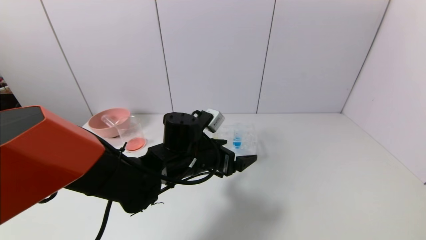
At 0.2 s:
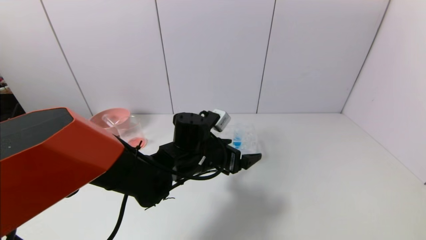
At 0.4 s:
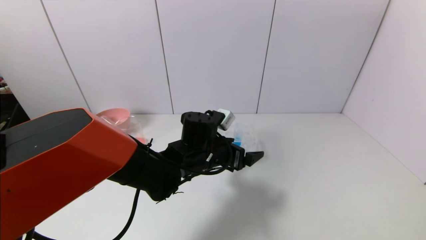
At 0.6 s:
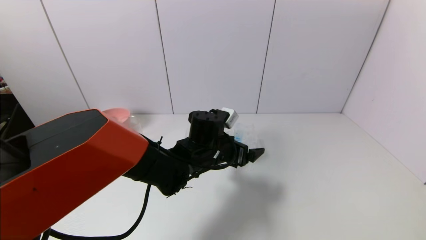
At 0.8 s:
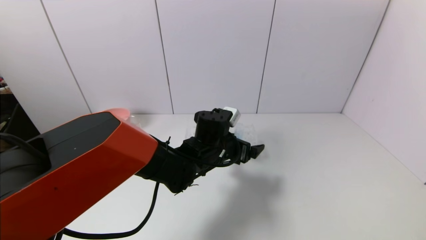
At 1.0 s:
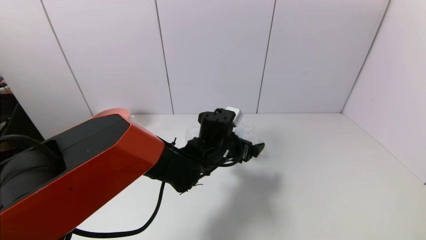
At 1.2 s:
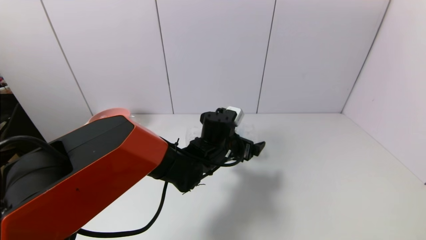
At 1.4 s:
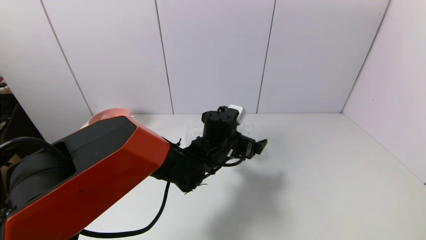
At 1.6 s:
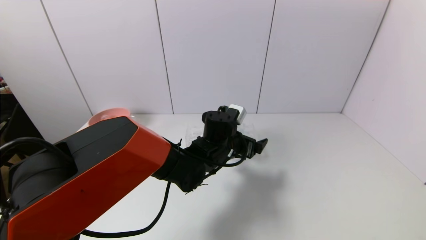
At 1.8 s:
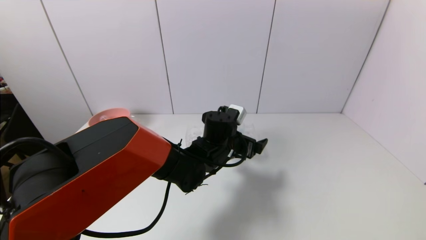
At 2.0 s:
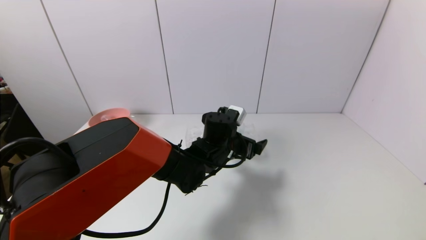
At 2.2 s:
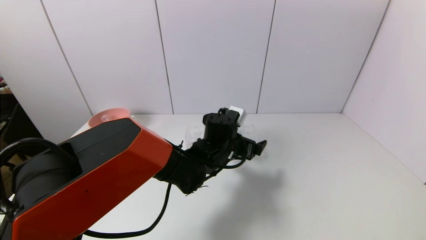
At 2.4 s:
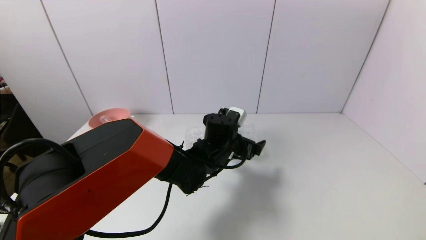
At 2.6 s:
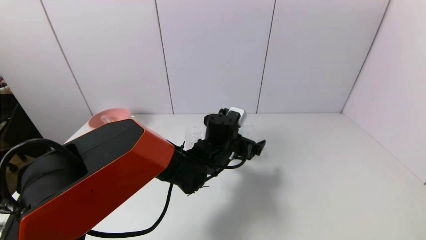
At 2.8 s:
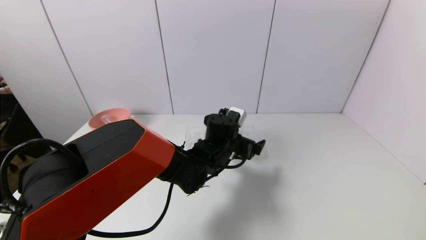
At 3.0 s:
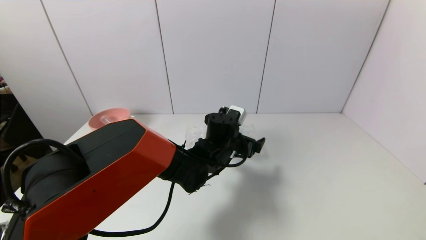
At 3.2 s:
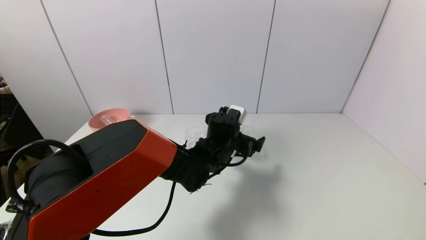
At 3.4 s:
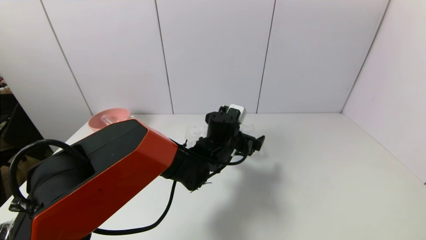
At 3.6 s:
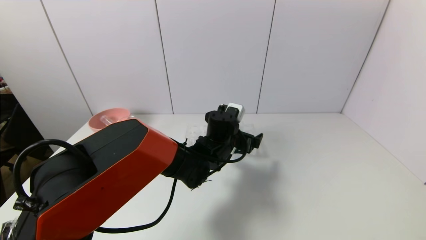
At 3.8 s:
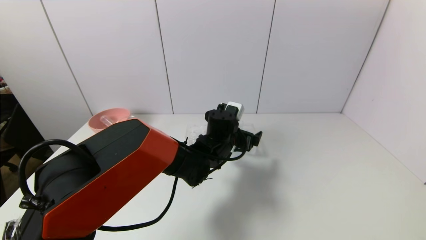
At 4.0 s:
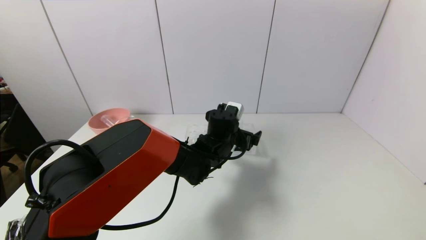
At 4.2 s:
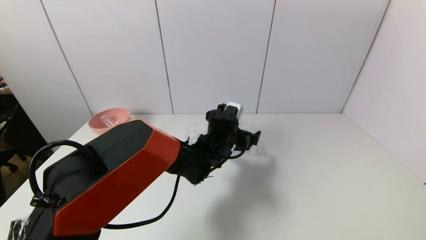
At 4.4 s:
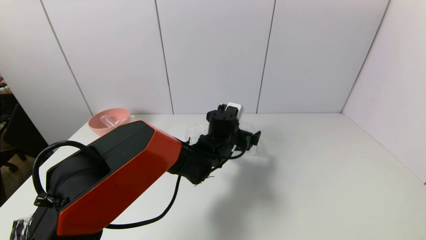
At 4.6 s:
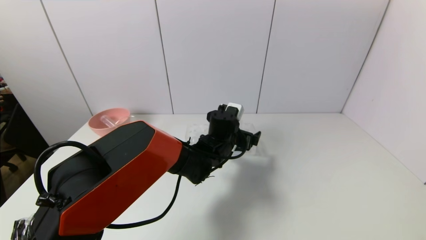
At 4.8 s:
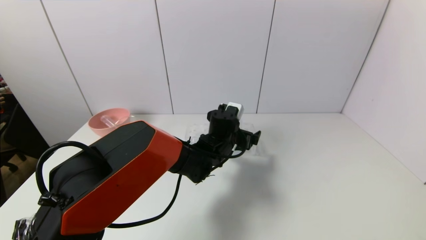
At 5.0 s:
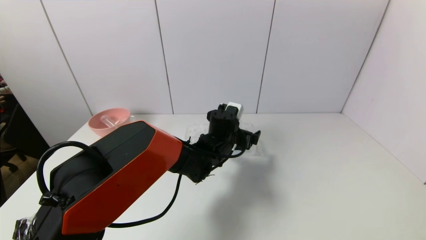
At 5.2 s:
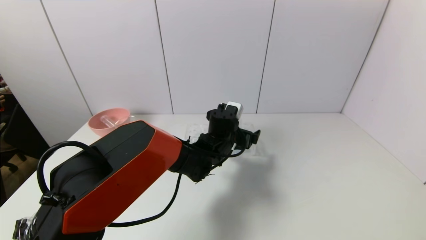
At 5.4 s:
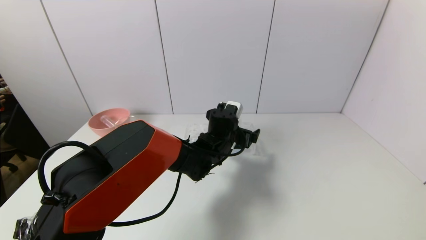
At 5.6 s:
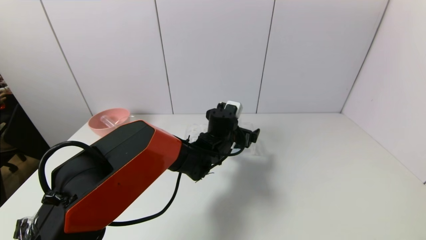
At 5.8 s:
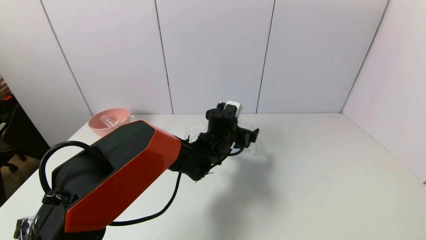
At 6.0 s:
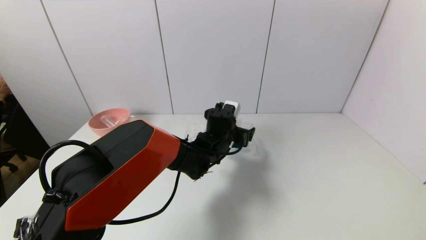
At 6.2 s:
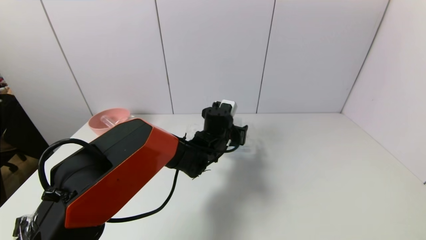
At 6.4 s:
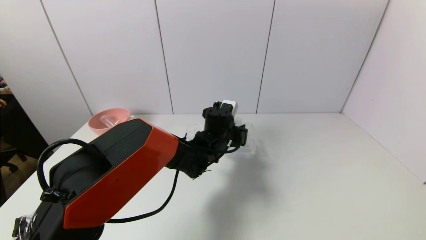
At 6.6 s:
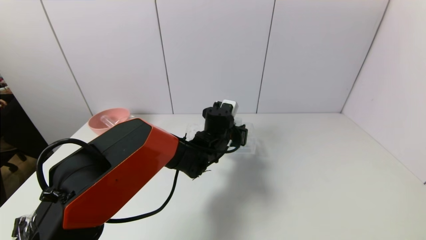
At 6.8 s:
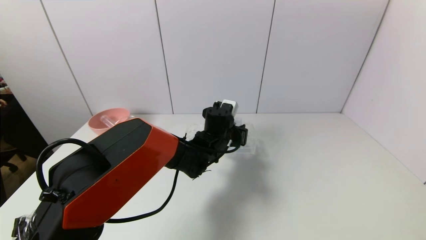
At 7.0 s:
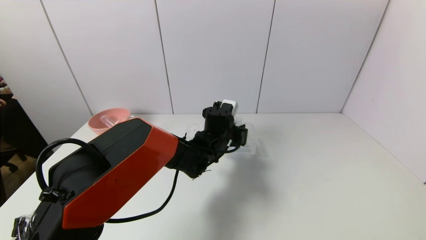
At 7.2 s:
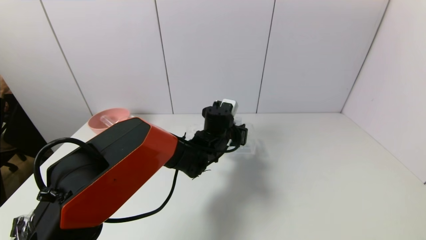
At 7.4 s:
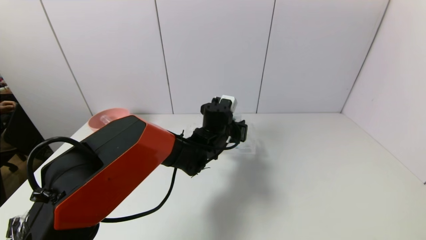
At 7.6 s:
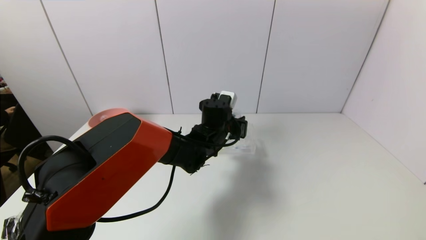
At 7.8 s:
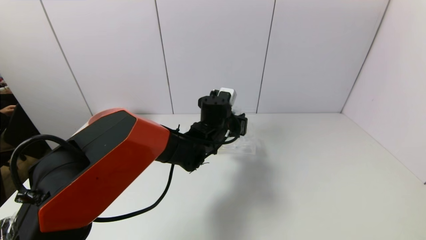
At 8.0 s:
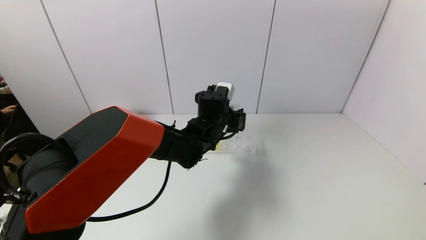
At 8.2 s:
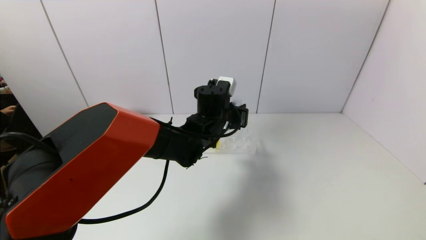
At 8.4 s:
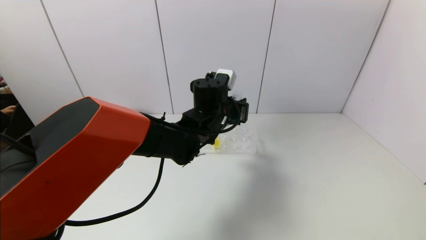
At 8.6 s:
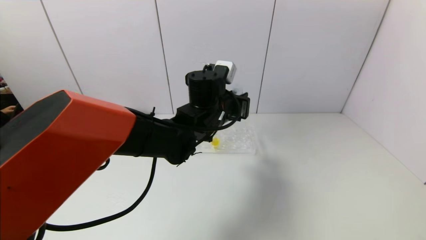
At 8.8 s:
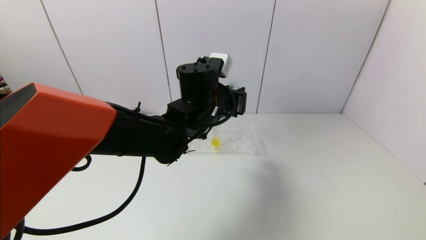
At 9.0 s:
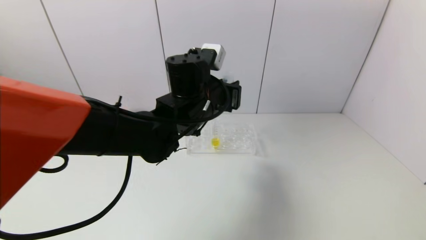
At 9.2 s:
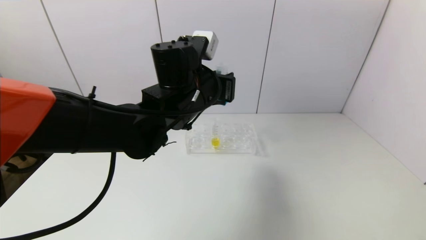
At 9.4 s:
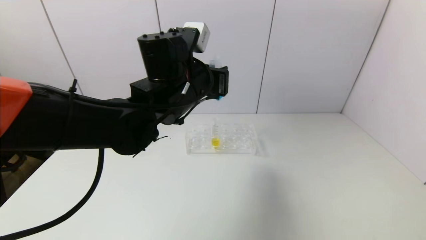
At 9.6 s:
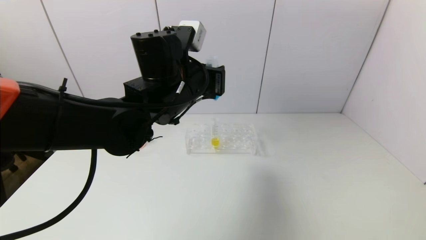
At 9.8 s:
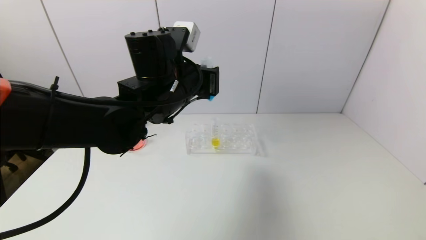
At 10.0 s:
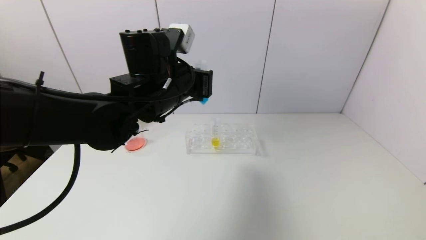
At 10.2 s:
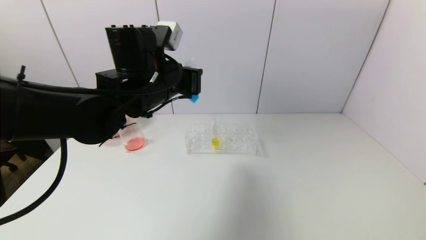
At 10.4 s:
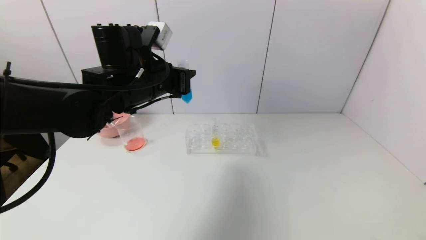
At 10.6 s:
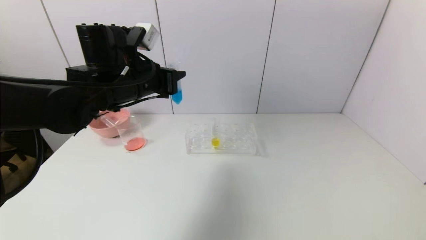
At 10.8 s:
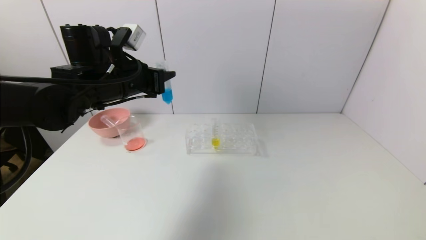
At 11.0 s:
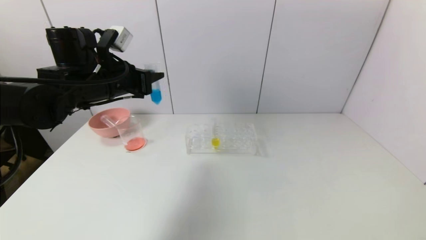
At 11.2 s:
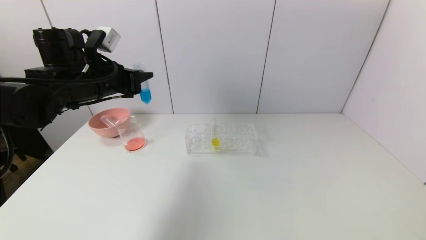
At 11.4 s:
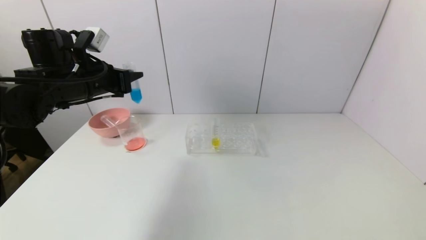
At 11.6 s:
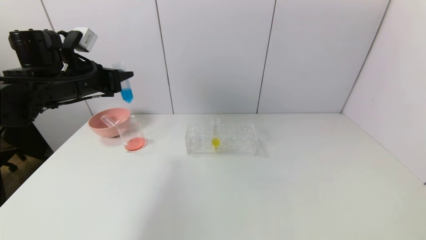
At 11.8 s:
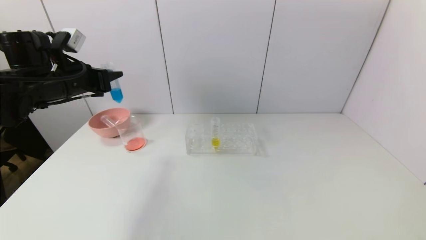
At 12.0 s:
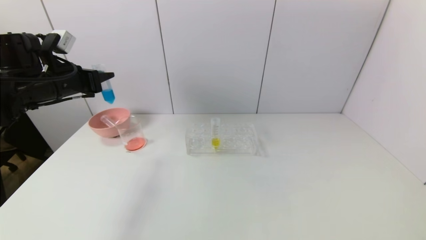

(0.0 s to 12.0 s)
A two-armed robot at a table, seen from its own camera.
Task of the whole recording: pick up the test tube with red pigment and the test tube with blue pigment by grippers and pour them into the container.
Step, 0.0 s - 6.8 s: Grasp the blue reagent with the left gripper.
0.0 s - 1.6 s: The left gripper shifts about 10 cm to the right and forward.
1.6 s - 3.0 s: Neither gripper changes place.
3.0 s - 6.0 s: The grippers move only a little.
6.0 s - 7.6 s: The left gripper closes its fingers.
7.6 s - 9.0 s: The left gripper is displaced upward and backward by about 15 cm.
9.0 s - 10.4 s: The left gripper moves to the left, about 10 cm.
10.4 s - 12.0 s: The left gripper is displaced to the left by about 20 cm.

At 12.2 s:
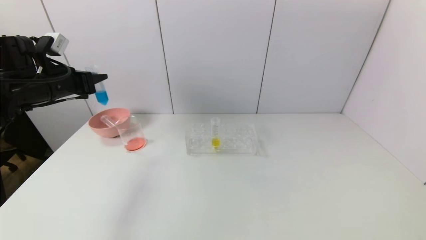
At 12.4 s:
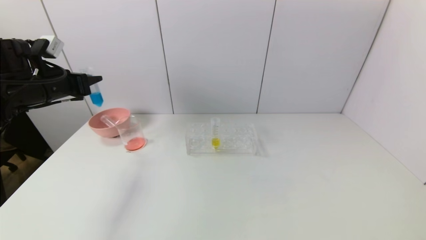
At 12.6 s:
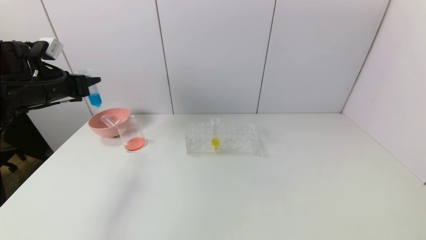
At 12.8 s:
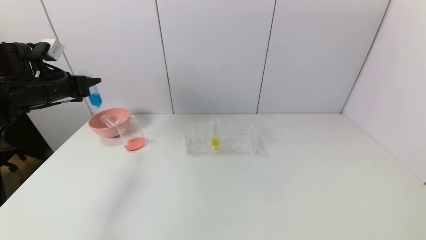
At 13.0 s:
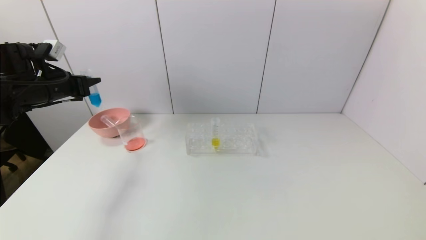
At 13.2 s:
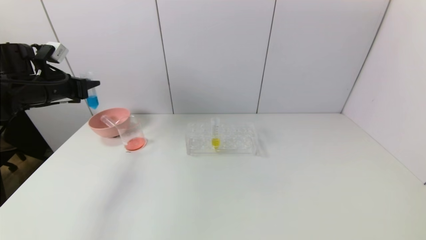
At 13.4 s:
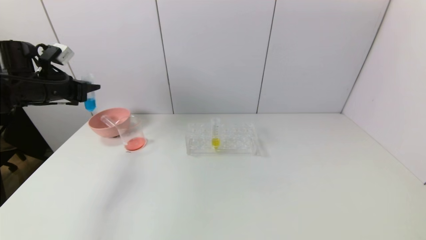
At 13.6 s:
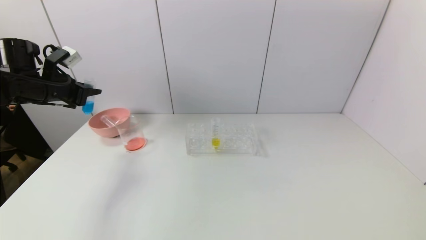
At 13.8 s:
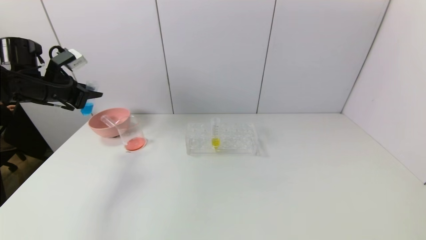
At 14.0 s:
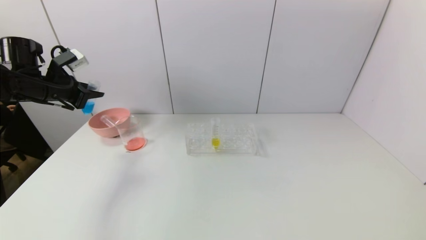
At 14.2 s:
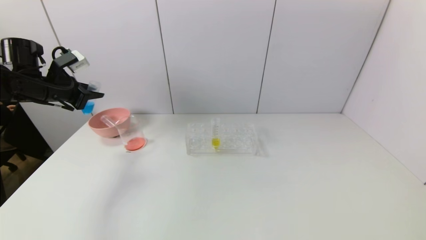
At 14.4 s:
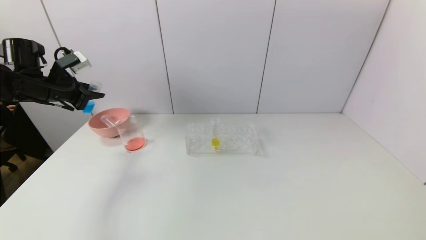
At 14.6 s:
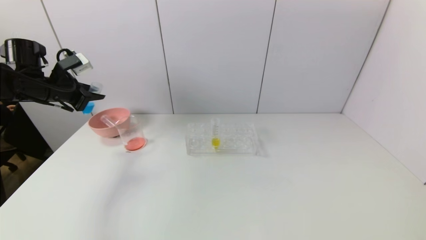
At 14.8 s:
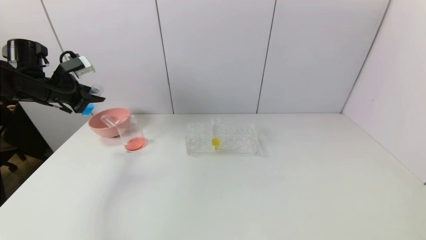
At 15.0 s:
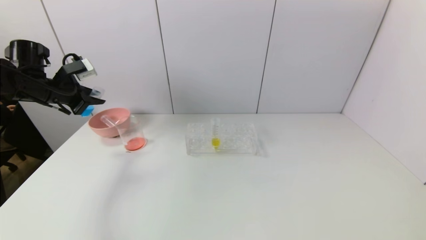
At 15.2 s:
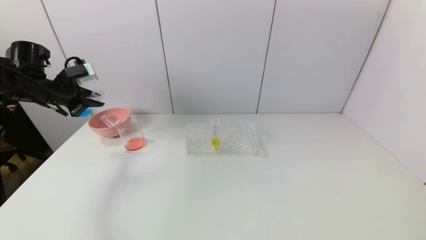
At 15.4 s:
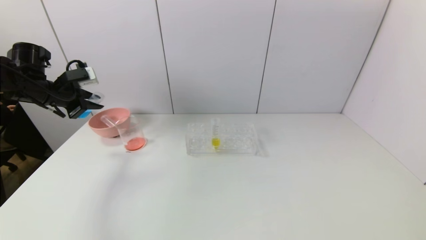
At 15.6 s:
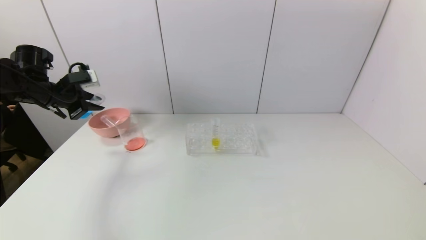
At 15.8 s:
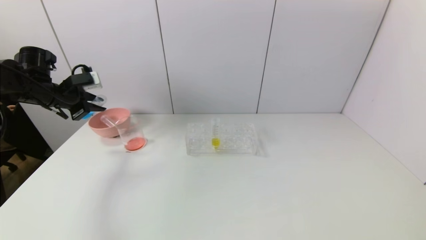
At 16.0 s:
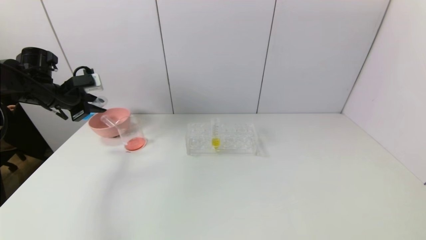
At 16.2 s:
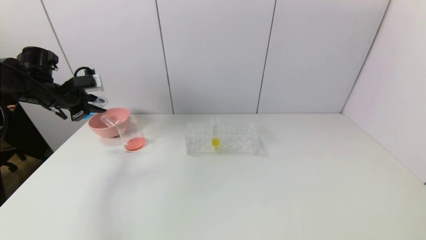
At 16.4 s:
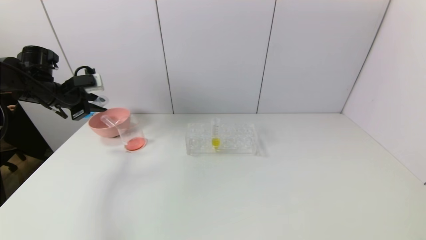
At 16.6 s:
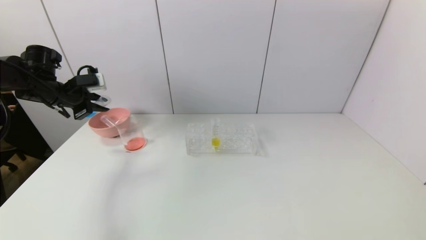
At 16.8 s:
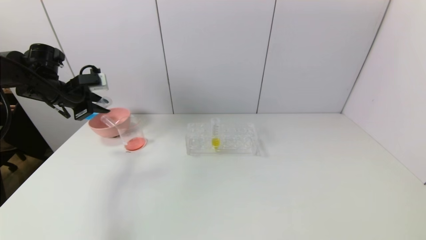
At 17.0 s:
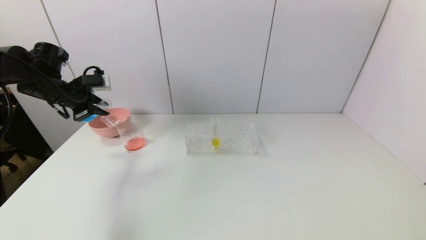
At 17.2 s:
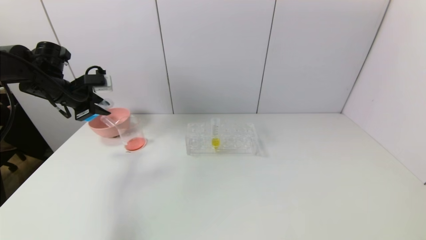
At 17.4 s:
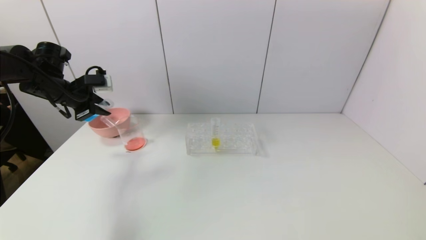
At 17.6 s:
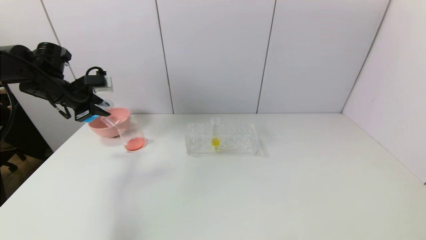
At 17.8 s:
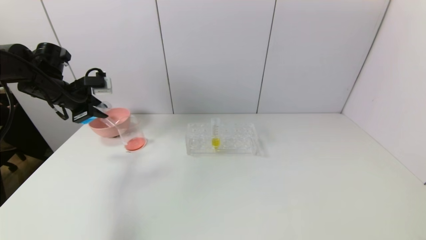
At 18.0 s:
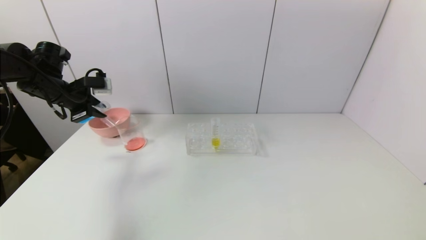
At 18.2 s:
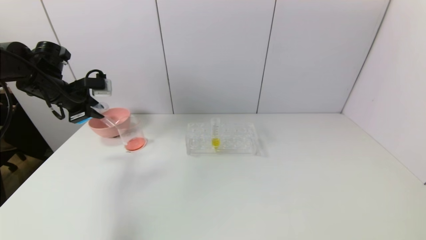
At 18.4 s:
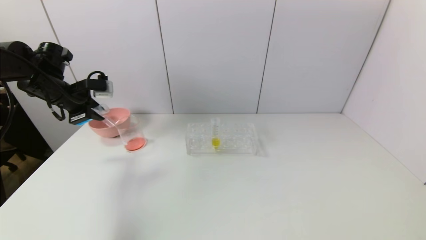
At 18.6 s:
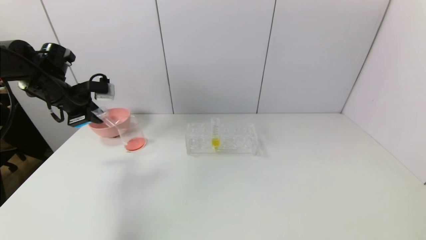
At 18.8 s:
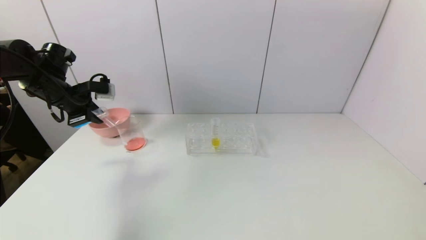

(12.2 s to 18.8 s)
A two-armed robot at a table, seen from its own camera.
Task of the whole recording: pick up the test tube with red pigment and the test tube with blue pigment by grippers and pour them into the container.
12.2 s - 13.8 s: The left gripper moves roughly 5 cm.
15.4 s - 17.2 s: The grippers make only small movements.
17.2 s - 18.8 s: The grippers make only small movements.
